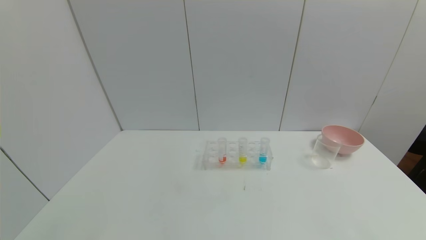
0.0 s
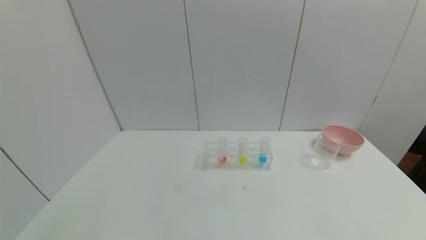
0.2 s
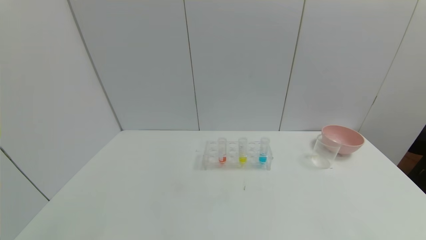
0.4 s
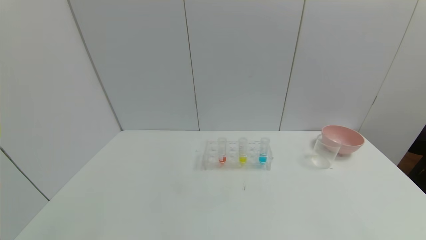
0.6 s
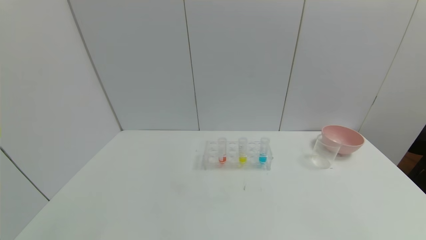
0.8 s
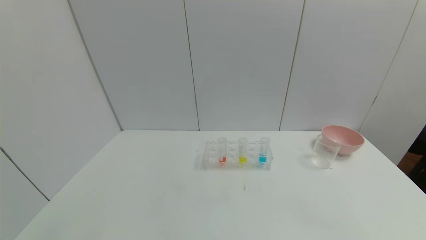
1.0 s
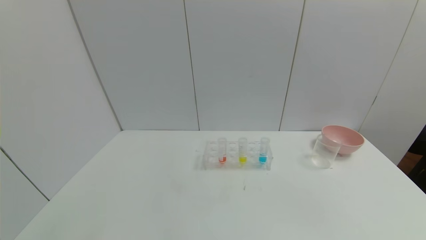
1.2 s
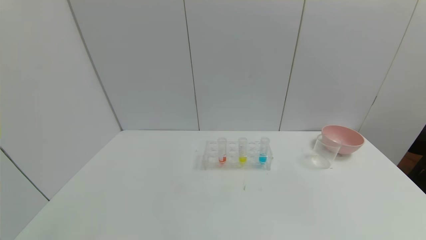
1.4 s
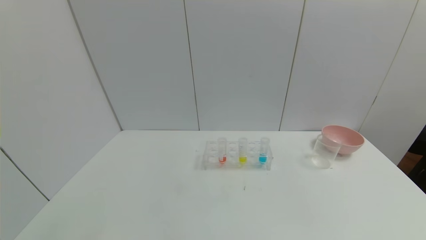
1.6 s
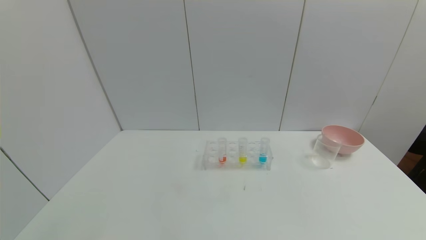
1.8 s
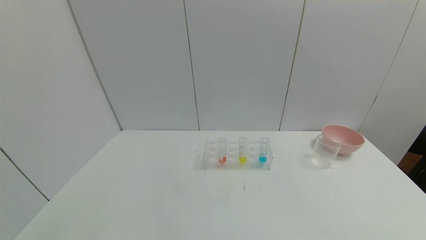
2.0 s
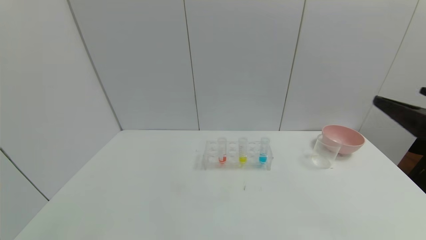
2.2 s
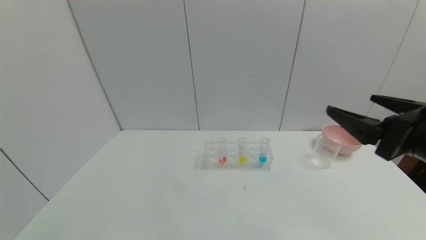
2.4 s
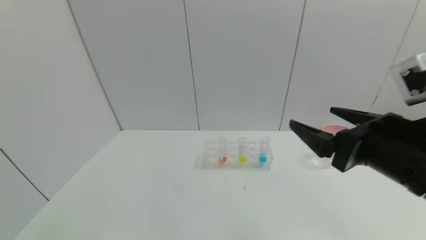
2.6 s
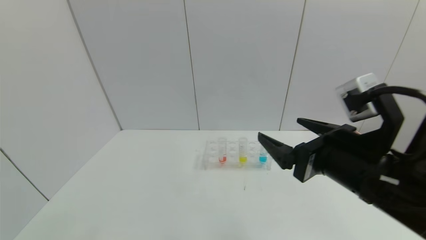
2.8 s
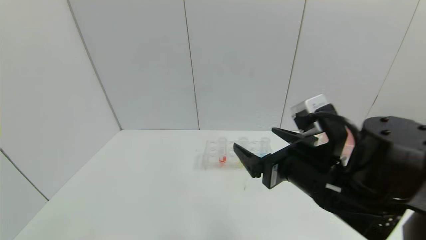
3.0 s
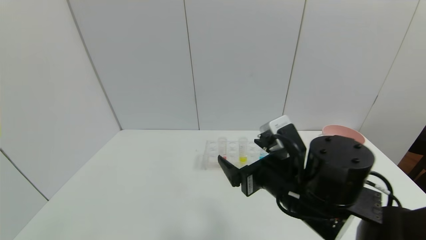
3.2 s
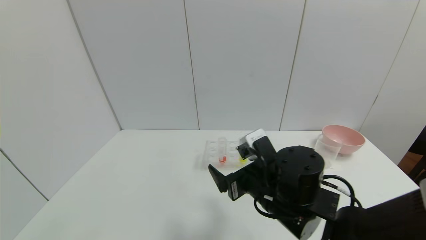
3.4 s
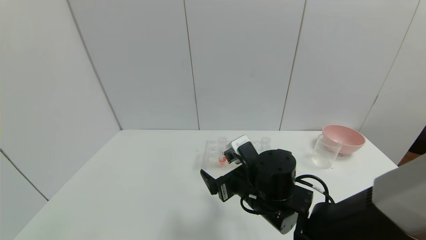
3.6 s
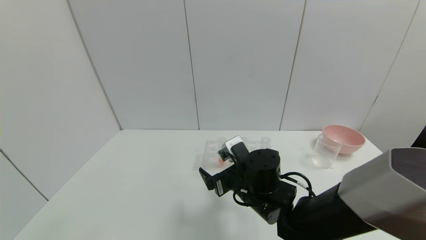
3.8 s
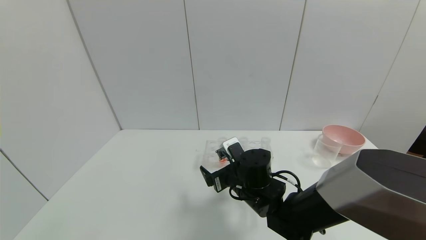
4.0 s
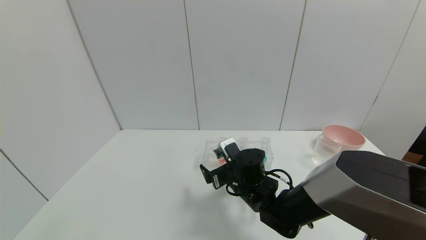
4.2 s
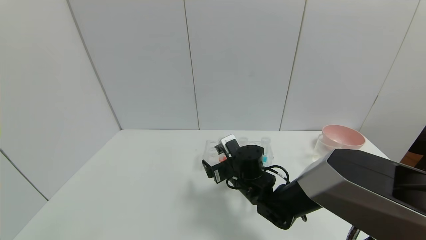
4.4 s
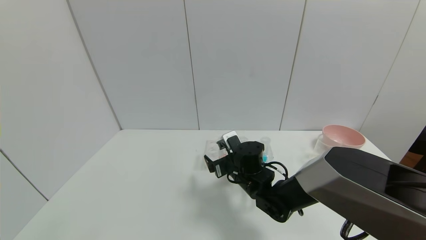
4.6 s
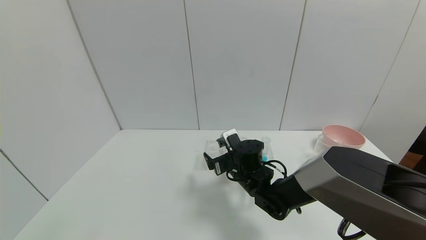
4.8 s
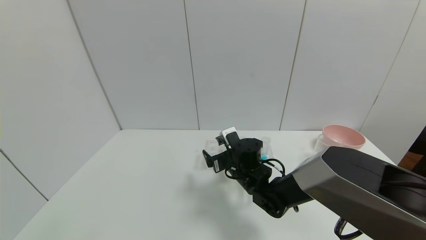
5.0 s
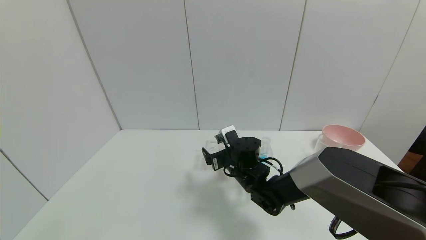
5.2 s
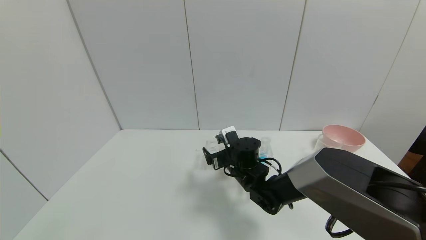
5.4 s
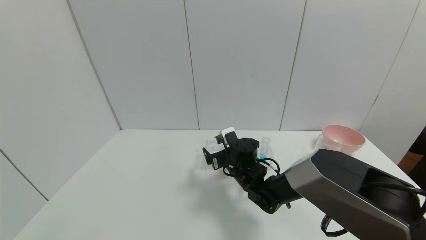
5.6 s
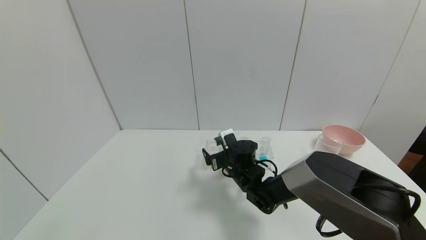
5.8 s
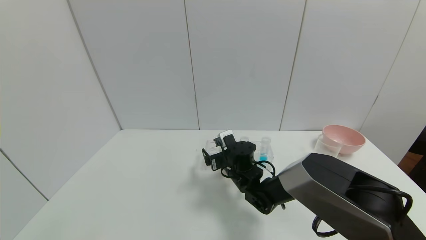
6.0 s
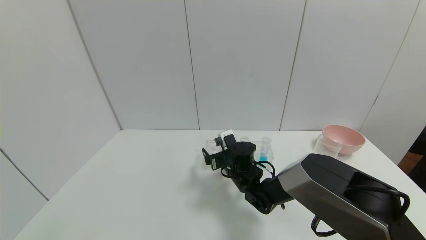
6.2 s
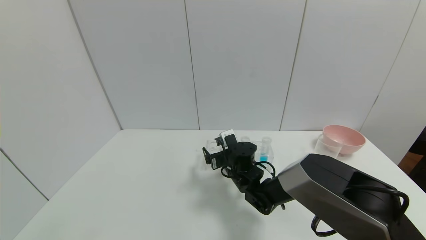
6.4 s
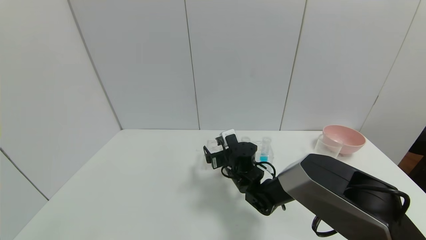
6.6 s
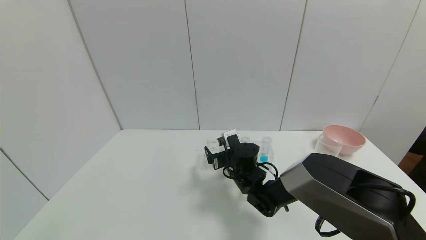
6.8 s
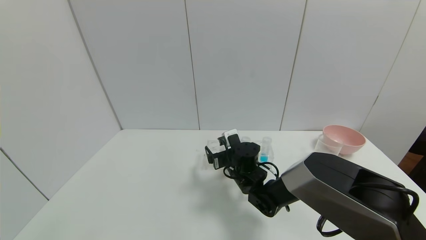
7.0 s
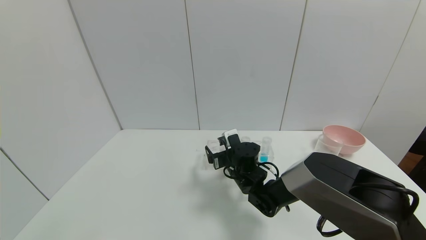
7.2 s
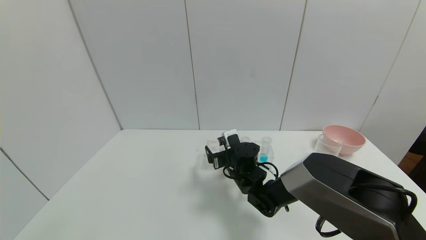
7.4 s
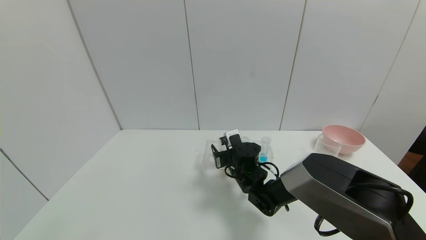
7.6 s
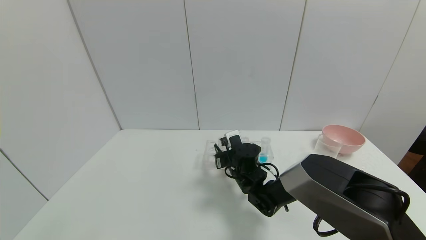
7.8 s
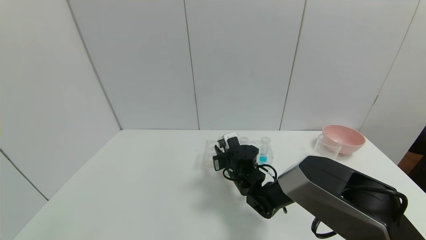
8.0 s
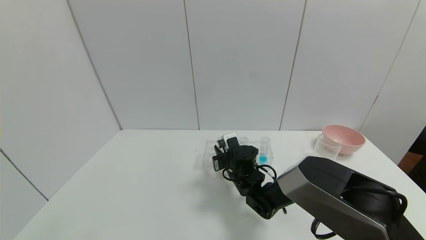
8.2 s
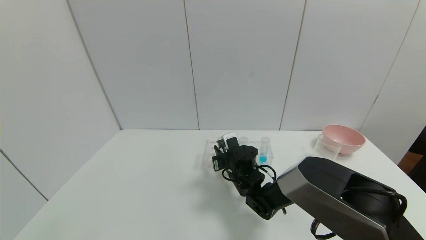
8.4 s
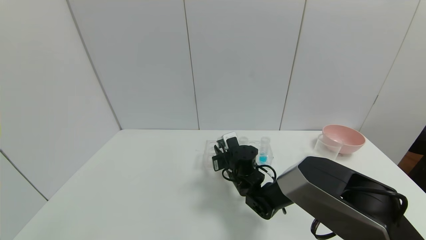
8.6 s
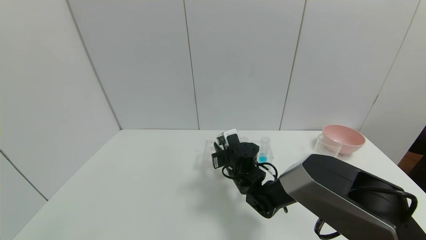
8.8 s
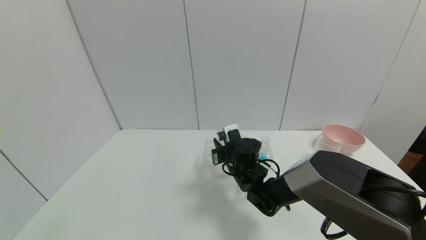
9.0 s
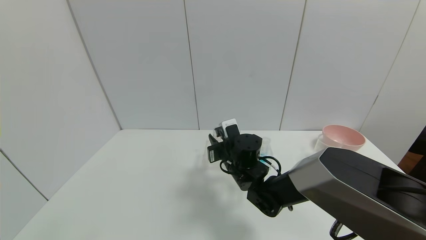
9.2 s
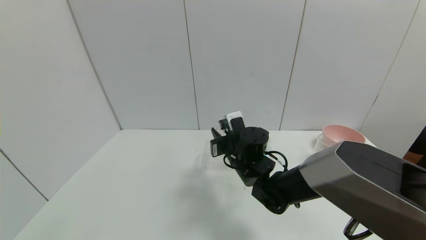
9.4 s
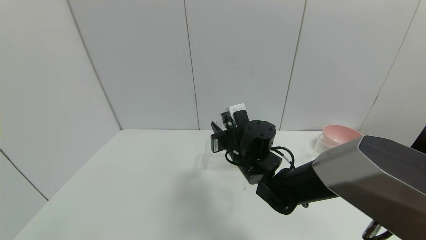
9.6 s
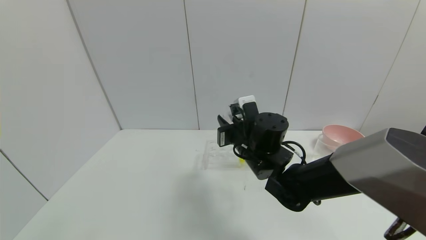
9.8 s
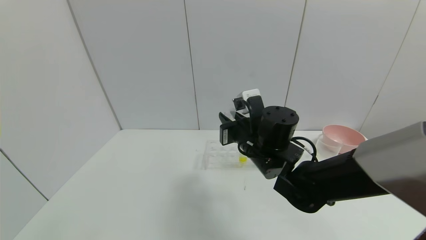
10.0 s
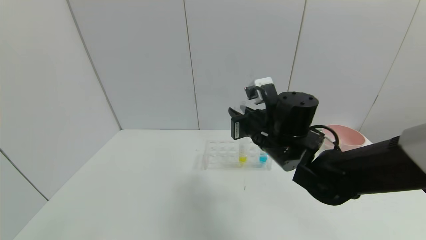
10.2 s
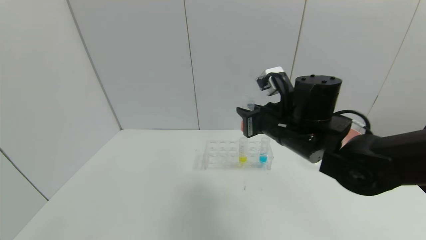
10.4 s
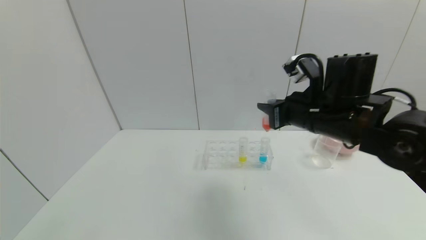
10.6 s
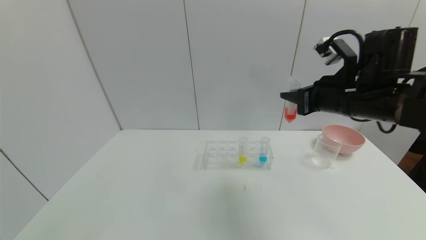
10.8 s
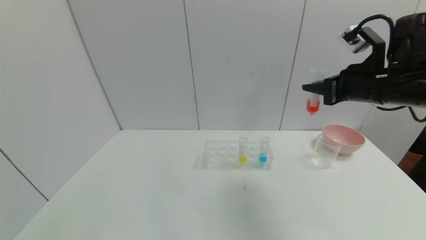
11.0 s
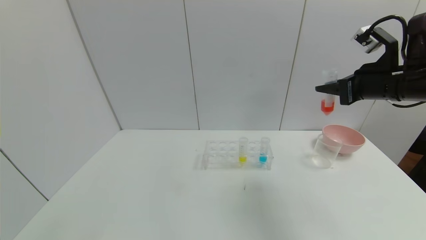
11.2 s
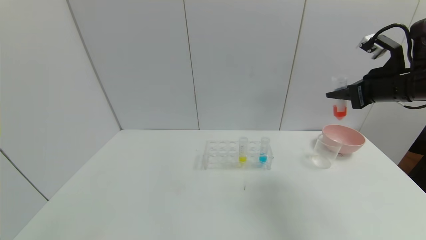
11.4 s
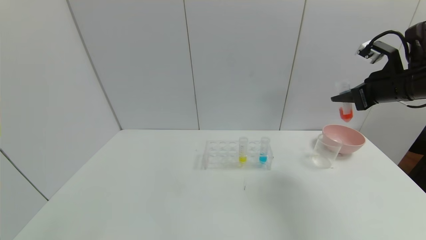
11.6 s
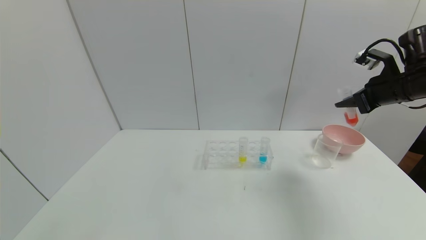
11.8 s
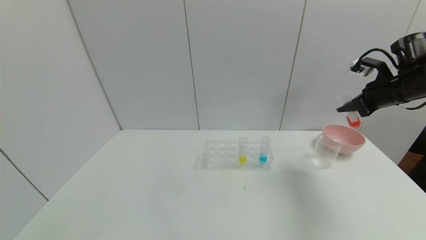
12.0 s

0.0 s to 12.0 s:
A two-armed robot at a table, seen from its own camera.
Task of the whole recording: pick up the test tube with yellow pigment and the test tube with red pigment by grippers and pour them into the beaker.
Step, 0.0 to 8.2 s: Grasp the red reagent with the right gripper.
1.6 to 3.0 s: The right gripper goes roughly 30 cm to the left and forward.
3.0 to 4.4 s: The right gripper moves forward, downward and to the left, roughly 20 cm.
4.4 to 6.0 s: The right gripper goes roughly 5 cm forward.
6.0 to 7.6 s: The right gripper closes.
7.6 to 9.0 s: The right gripper closes its fingers.
9.0 to 10.4 s: The right gripper moves upward, to the right and backward, about 20 cm.
10.4 to 12.0 s: The right gripper travels to the right by some 25 cm.

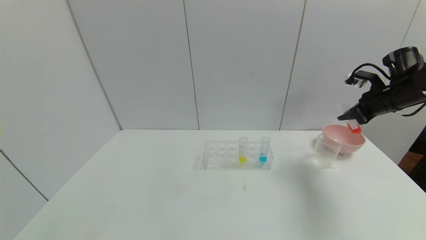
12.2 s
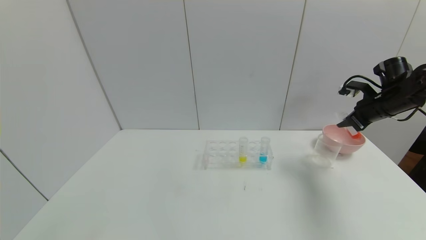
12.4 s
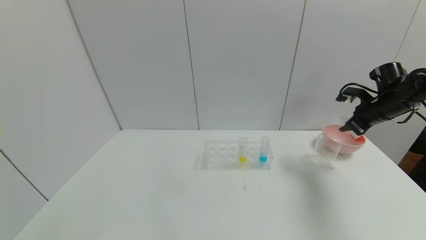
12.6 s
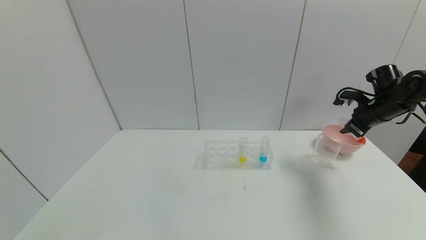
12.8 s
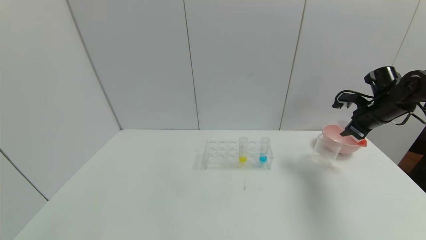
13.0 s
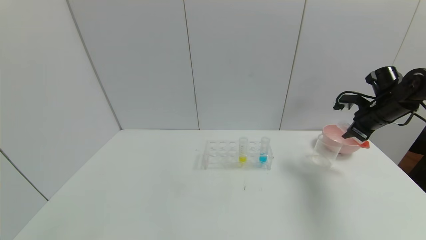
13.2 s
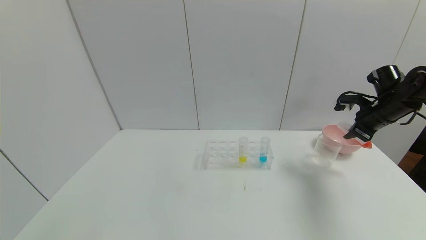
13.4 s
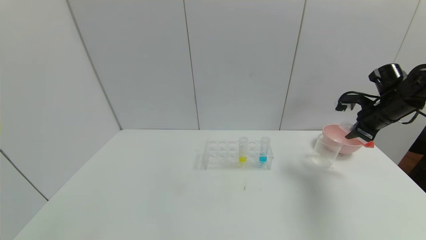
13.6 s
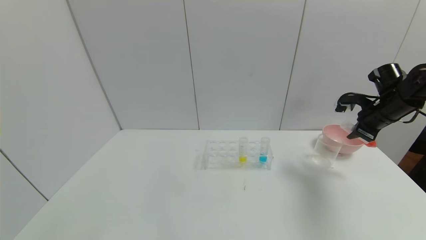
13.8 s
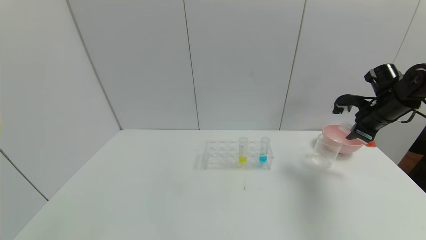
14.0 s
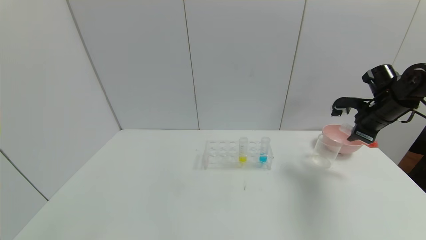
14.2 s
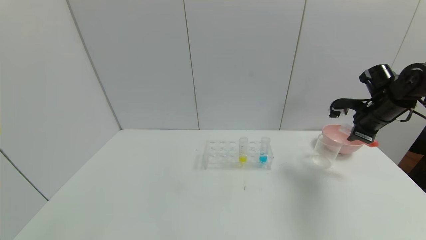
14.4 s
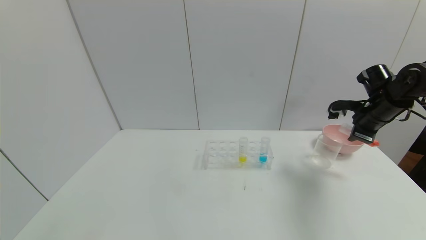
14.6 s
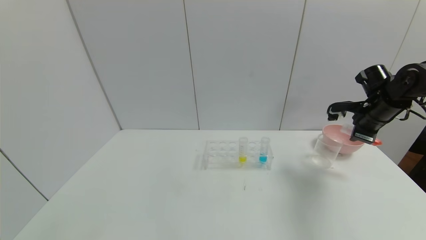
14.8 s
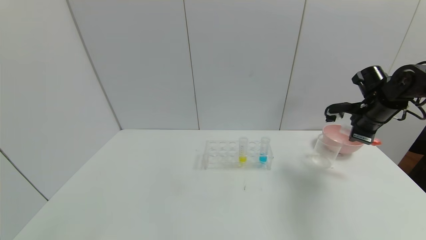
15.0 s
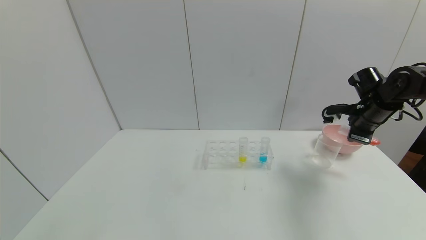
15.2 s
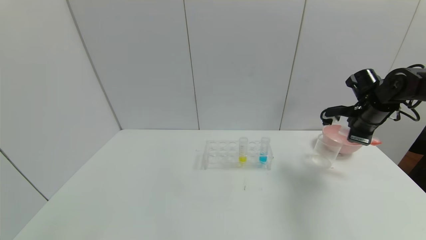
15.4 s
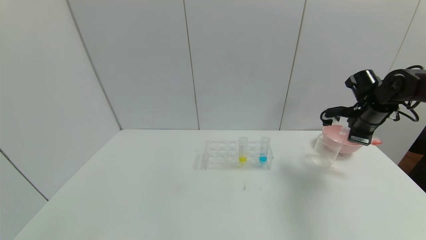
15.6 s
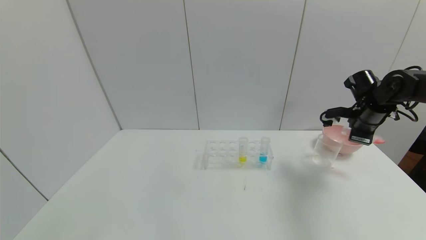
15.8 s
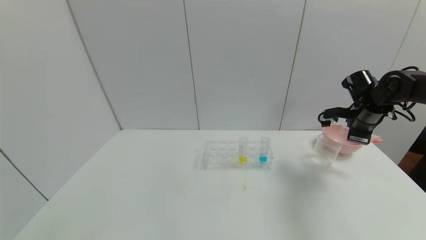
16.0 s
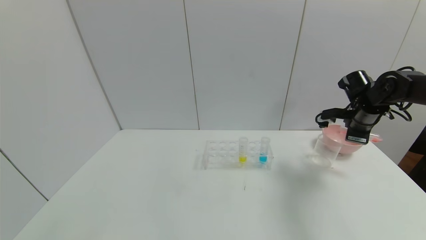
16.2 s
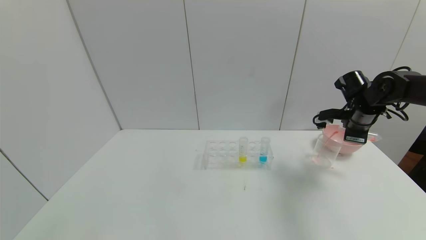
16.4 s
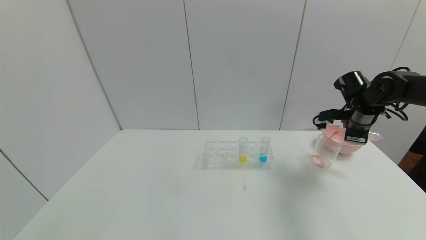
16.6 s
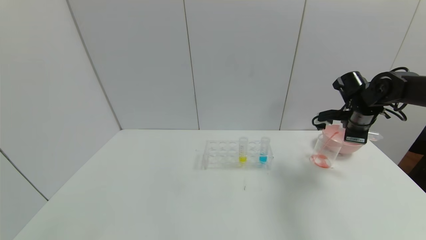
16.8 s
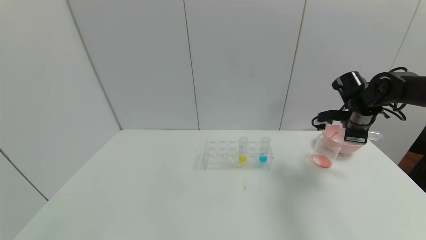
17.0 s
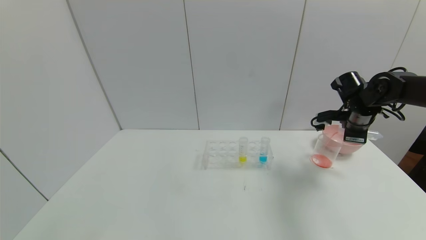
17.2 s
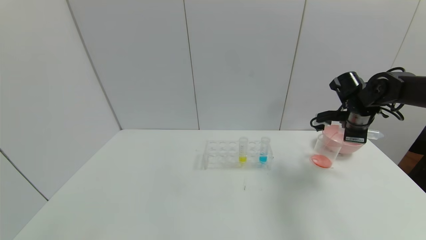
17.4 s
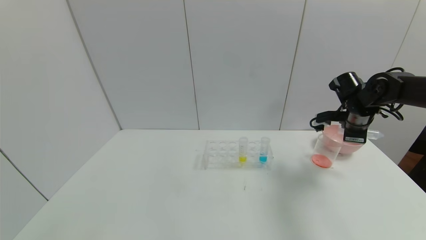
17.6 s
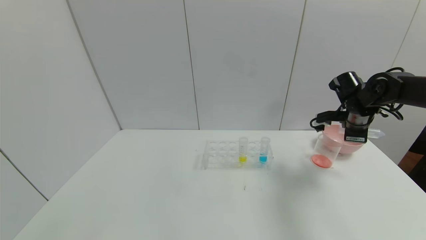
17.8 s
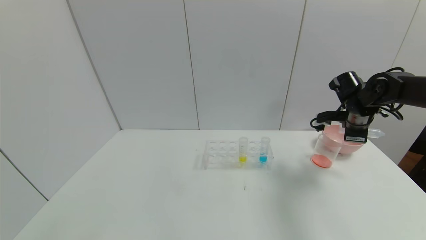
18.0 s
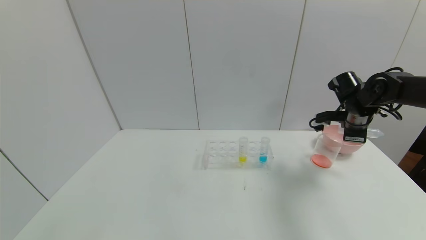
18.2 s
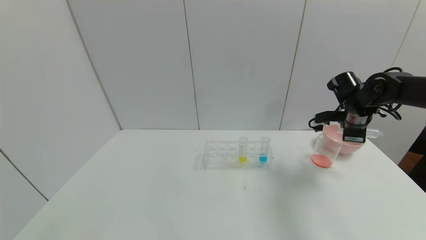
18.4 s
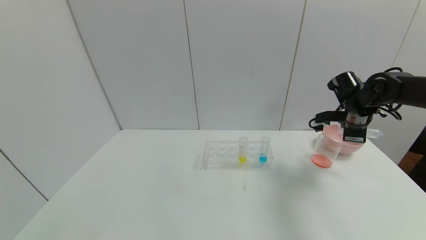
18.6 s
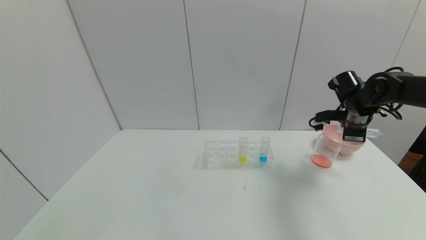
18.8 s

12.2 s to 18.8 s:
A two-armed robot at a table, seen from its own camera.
Task of the whole recording: pick up the test tube with yellow pigment and the test tube with red pigment by grippers and pour them into the beaker.
Step, 12.2 to 18.0 s: Pour the red reagent into the graduated cylinder with the right gripper.
13.8 to 15.4 s: The grippers stay close to where they were, moving slightly.
15.4 to 17.2 s: The grippers stay close to where they were, moving slightly.
17.2 to 18.8 s: The two grippers keep their place.
